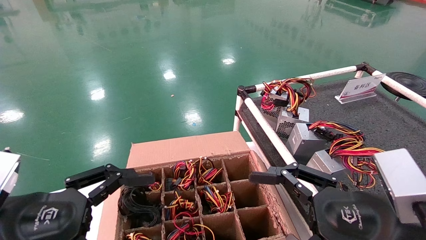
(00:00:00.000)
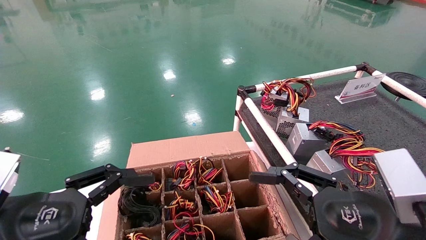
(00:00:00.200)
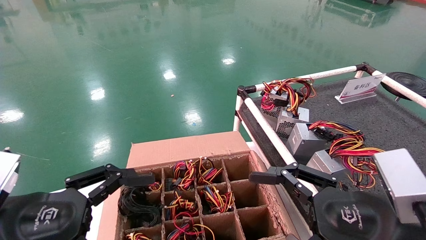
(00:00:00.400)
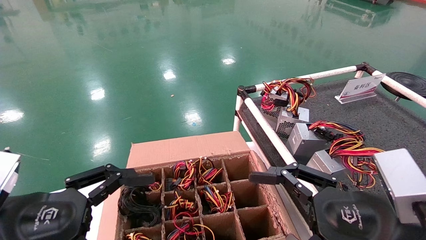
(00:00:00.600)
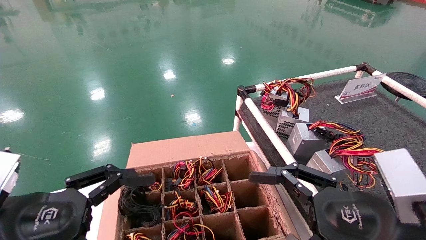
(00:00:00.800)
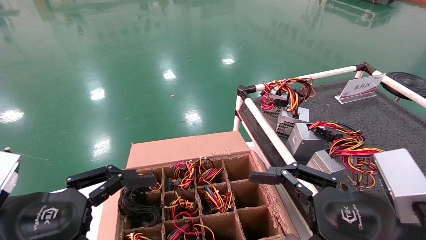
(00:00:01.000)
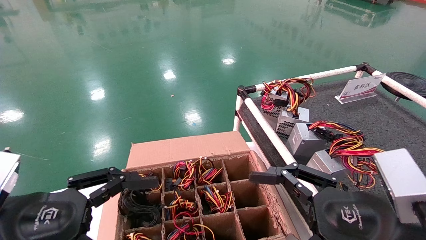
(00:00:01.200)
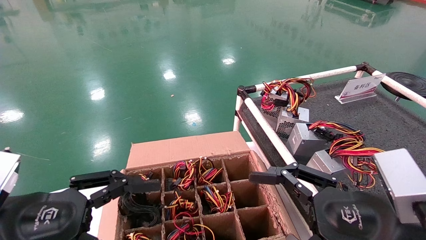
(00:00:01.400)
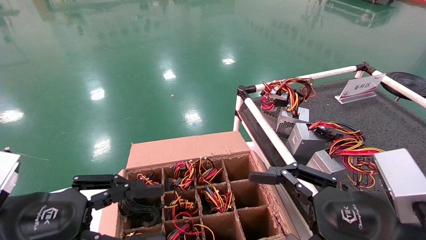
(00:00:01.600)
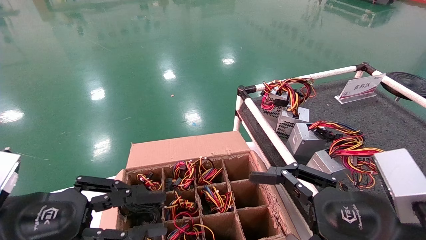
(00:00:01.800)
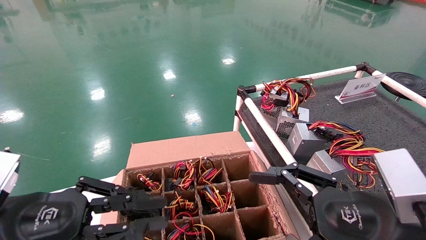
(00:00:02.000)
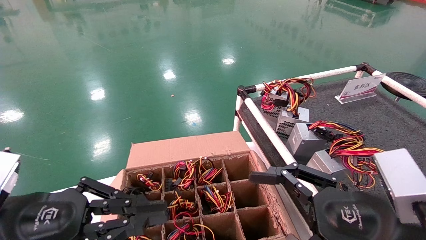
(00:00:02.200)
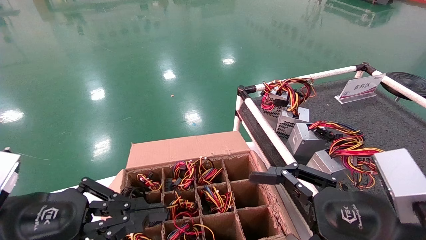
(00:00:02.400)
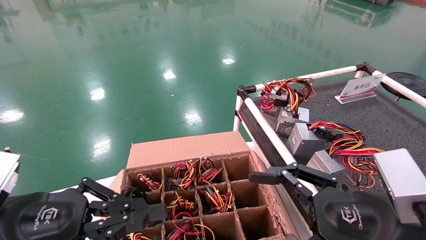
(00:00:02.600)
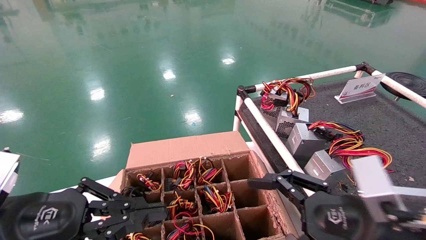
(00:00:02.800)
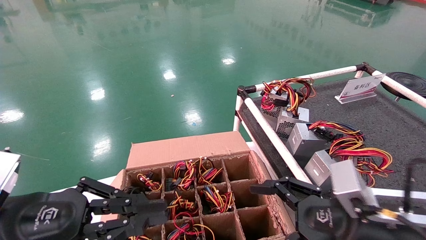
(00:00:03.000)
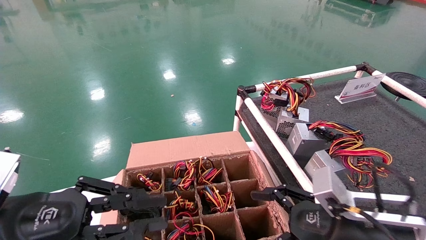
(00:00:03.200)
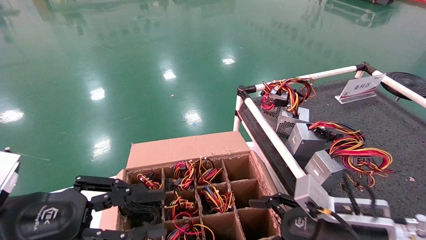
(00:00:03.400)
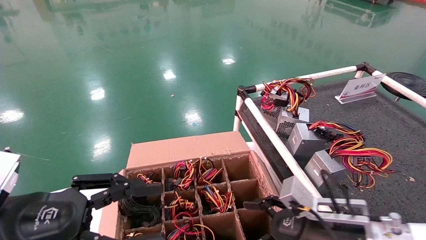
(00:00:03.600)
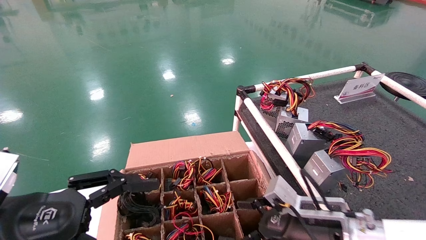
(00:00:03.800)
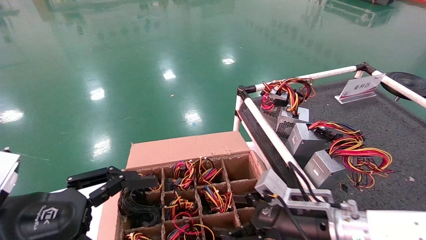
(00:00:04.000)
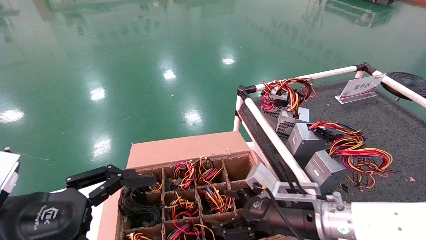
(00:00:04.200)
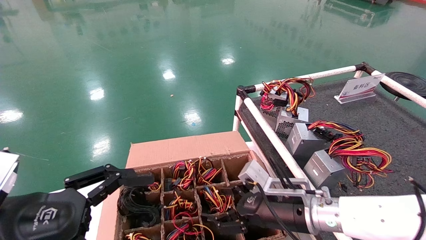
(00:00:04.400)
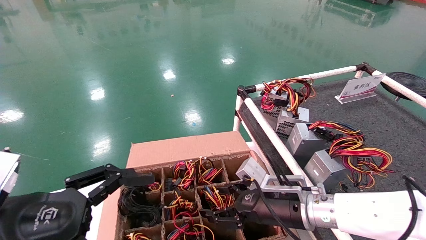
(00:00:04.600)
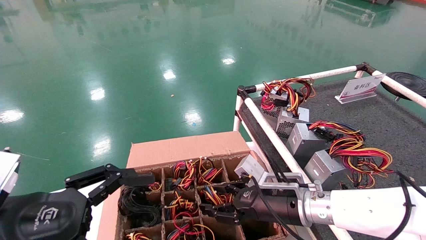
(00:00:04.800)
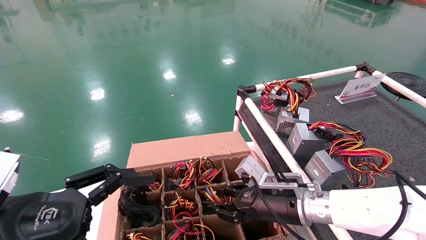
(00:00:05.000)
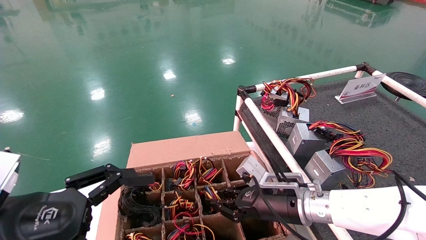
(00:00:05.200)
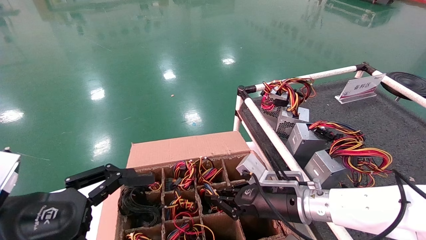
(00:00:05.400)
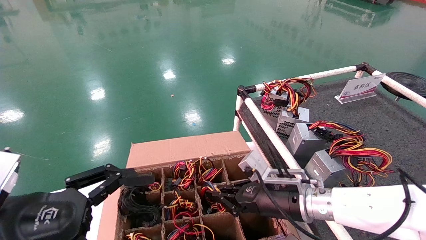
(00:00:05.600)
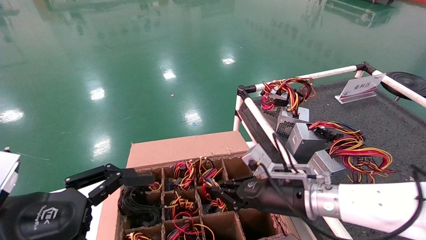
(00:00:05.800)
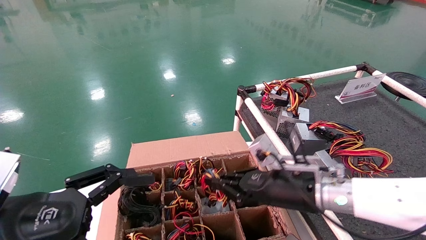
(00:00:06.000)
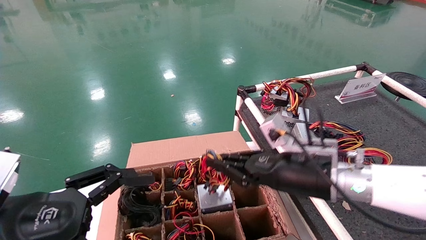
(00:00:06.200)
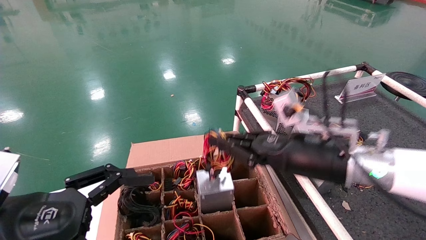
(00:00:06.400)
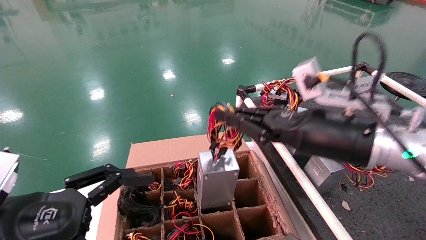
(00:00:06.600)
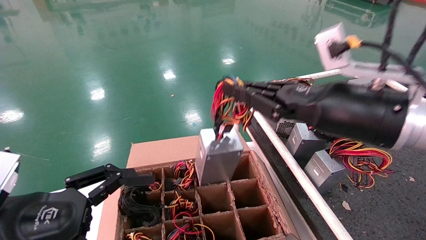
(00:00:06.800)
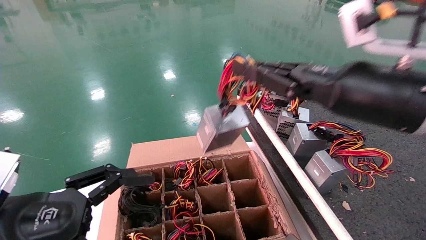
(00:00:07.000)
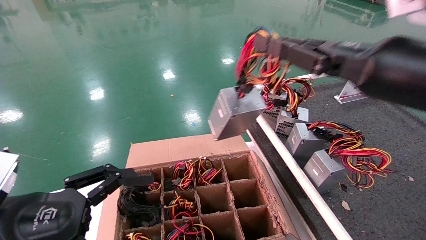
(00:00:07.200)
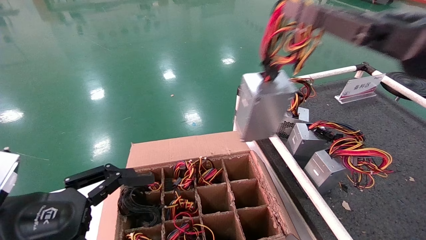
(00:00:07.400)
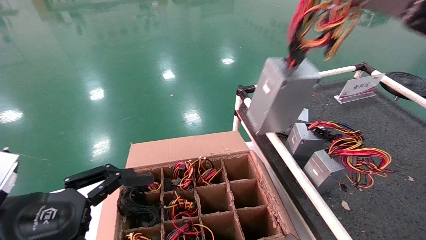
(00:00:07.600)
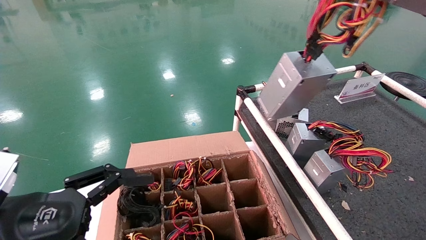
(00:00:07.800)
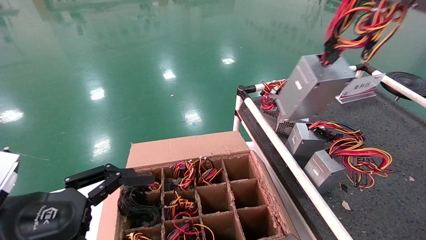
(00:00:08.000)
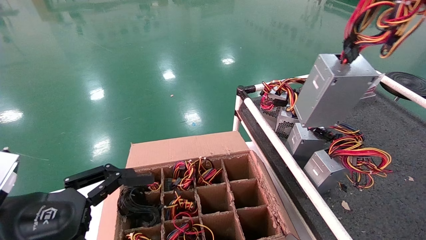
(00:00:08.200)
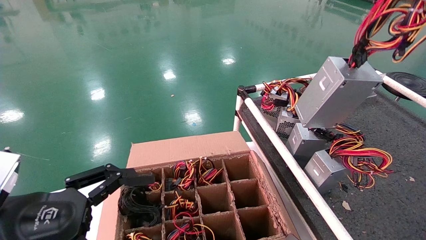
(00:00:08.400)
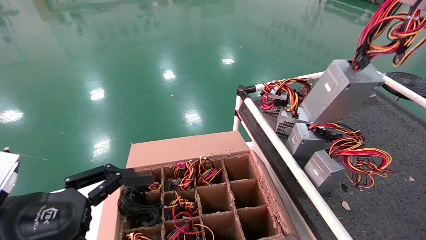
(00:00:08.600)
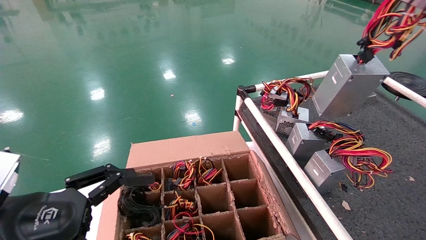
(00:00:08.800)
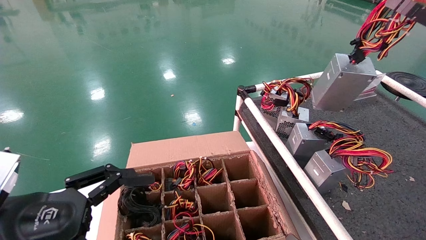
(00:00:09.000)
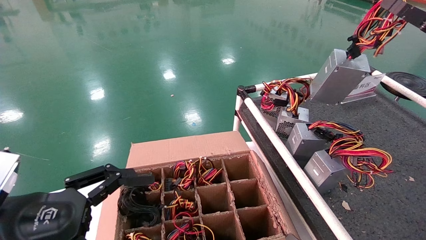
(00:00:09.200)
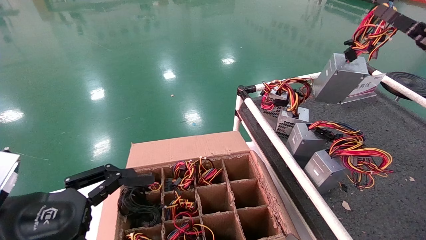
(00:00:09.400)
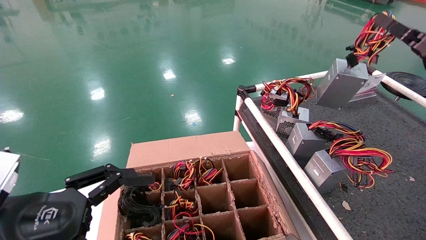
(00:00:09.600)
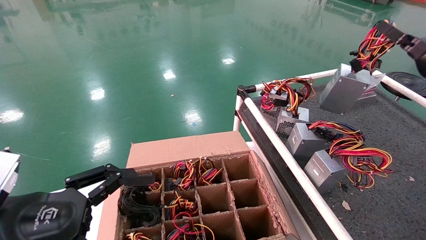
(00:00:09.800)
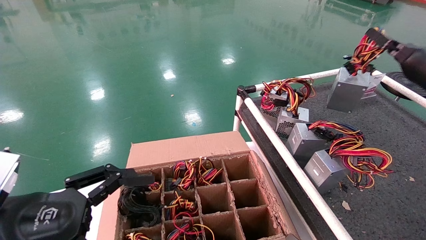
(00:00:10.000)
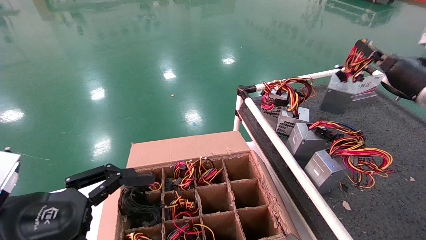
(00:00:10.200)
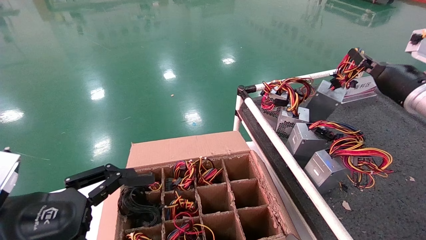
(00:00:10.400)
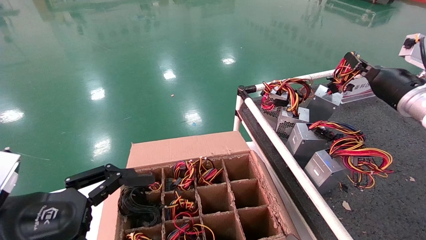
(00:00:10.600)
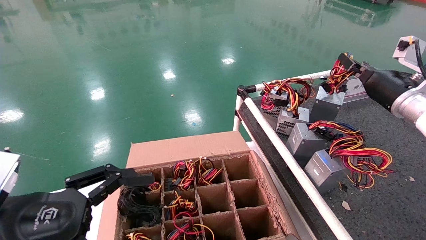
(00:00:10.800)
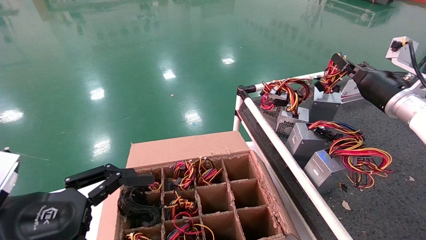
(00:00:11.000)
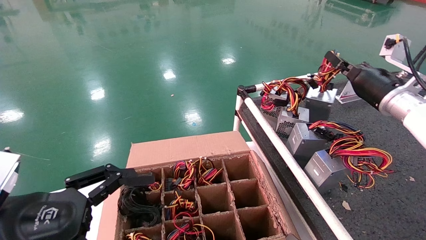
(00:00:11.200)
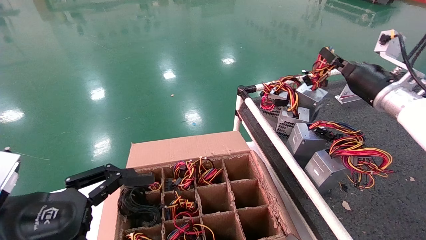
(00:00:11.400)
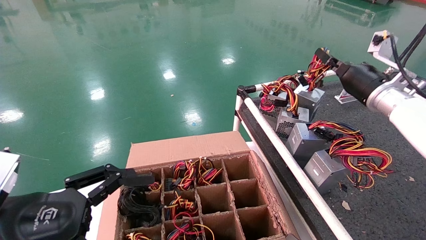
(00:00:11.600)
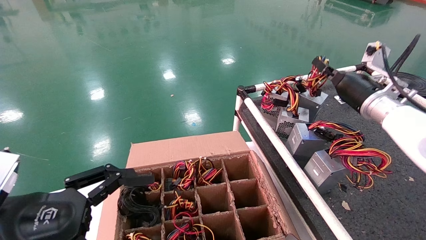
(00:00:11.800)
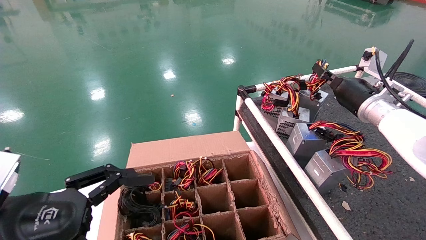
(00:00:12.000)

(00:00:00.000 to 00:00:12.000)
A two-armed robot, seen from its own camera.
Step, 00:00:03.200 - 00:00:06.000: Grab and lift the power supply from the large box.
00:00:00.000 - 00:00:01.600: The left gripper closes up.
00:00:01.600 - 00:00:03.000: The left gripper closes up.
00:00:03.000 - 00:00:04.400: The right gripper goes roughly 15 cm forward and to the left. The left gripper opens its fingers.
00:00:04.400 - 00:00:06.000: The right gripper moves upward, roughly 5 cm, and closes up.
00:00:06.000 - 00:00:07.600: The right gripper travels upward, backward and to the right by roughly 30 cm.
00:00:07.600 - 00:00:09.000: The right gripper goes roughly 15 cm to the right and forward.
00:00:09.000 - 00:00:10.400: The right gripper shifts approximately 15 cm forward.
00:00:10.400 - 00:00:12.000: The right gripper goes roughly 5 cm to the left.

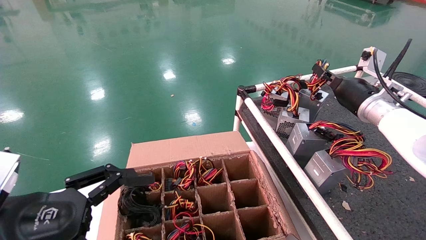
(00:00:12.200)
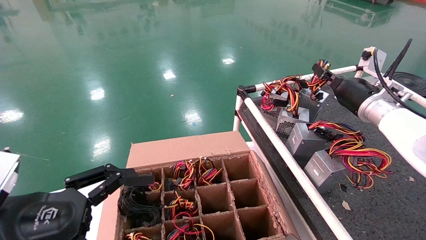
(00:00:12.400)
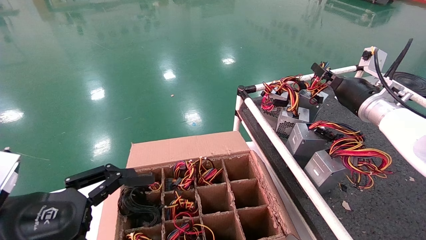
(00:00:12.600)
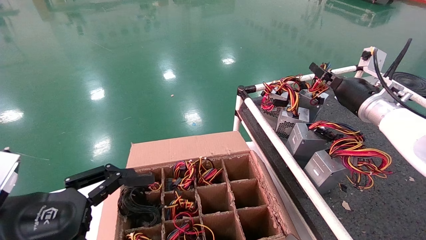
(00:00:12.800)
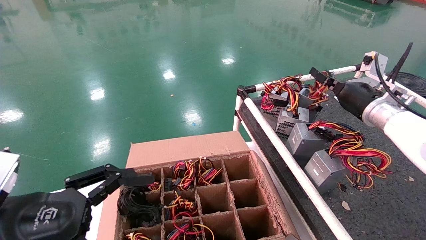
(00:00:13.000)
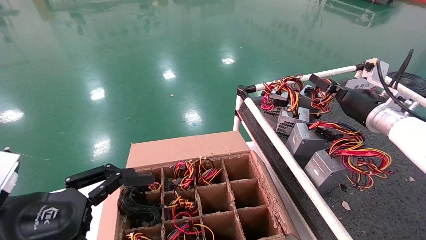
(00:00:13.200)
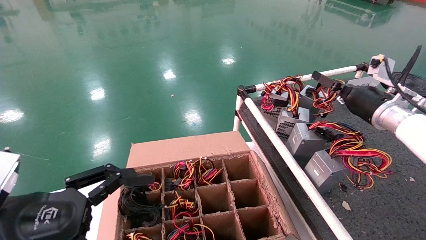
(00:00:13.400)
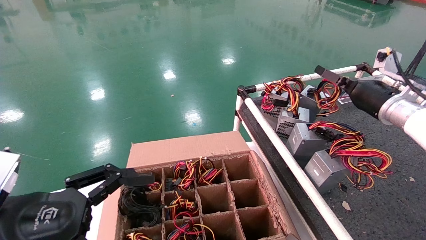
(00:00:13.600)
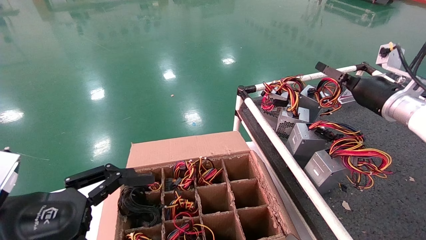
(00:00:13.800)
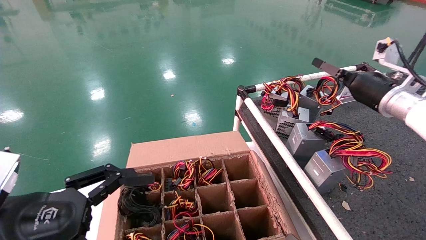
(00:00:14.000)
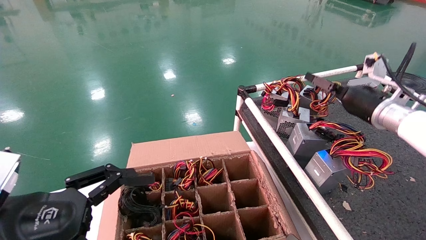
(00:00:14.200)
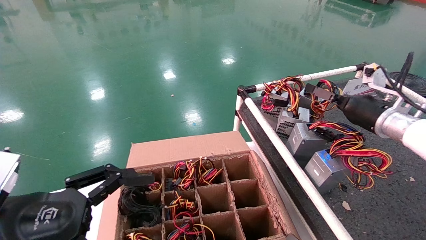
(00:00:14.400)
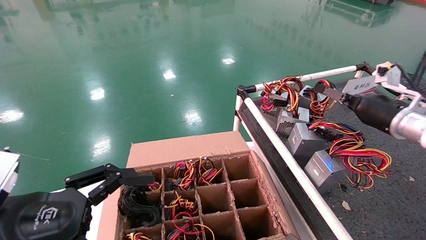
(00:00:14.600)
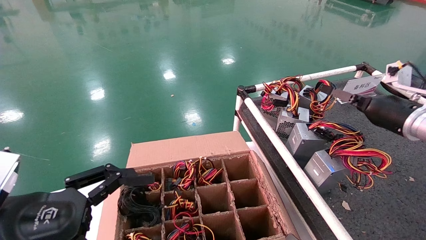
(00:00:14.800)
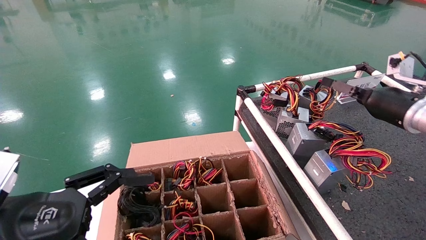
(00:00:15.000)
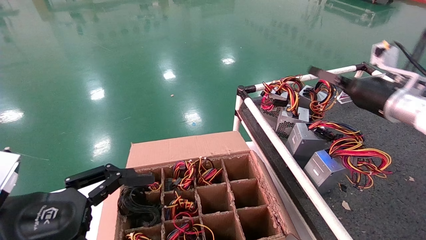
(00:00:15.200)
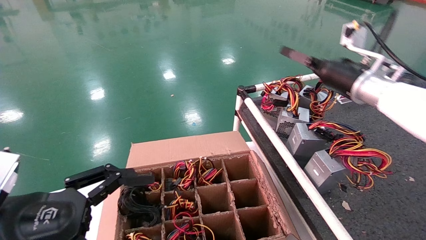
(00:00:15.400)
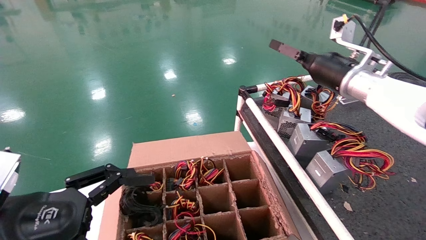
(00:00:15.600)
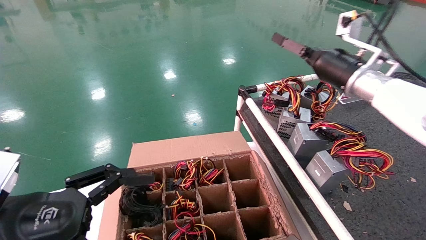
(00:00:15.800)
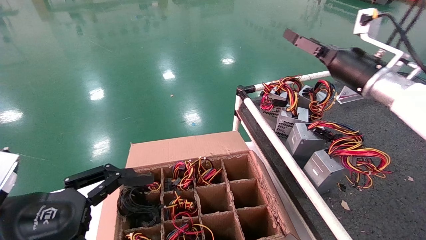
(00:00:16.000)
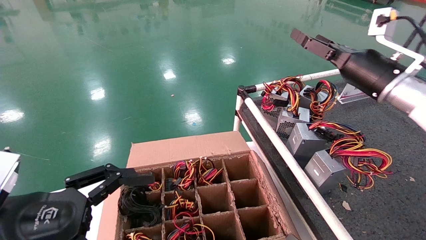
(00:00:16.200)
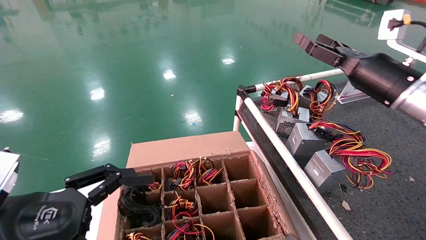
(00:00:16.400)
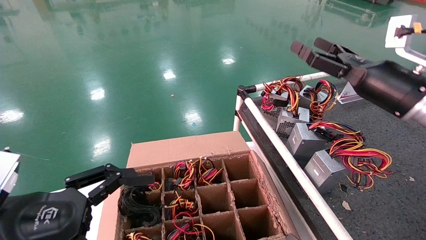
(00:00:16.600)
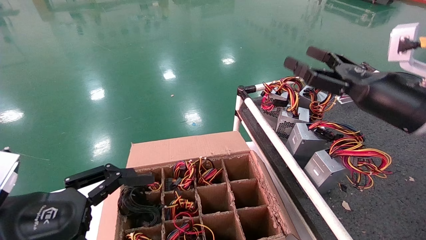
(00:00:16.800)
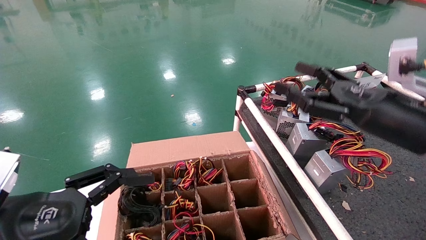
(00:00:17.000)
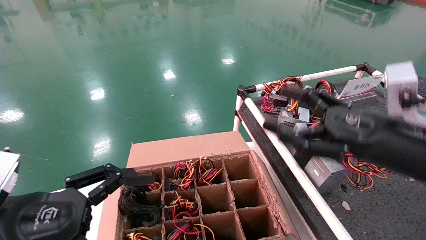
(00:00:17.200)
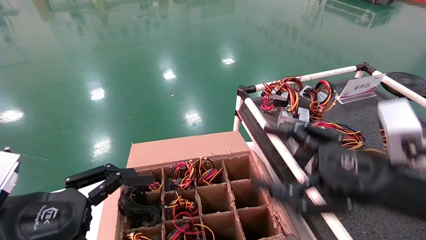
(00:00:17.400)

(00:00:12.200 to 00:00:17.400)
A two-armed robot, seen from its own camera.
00:00:12.200 - 00:00:14.000: The right gripper opens.
00:00:14.000 - 00:00:15.600: The right gripper heads to the left and upward, covering roughly 10 cm.
00:00:15.600 - 00:00:17.400: The right gripper shifts approximately 20 cm backward and downward.
